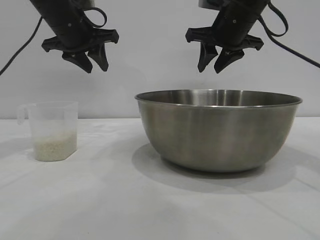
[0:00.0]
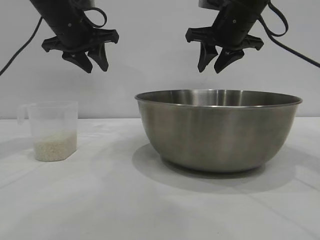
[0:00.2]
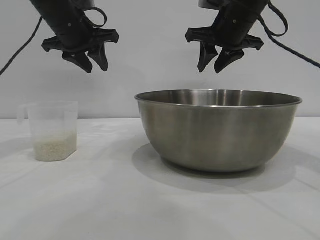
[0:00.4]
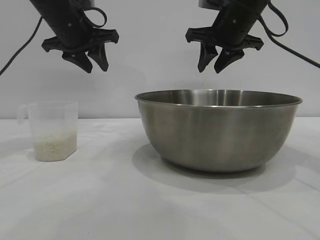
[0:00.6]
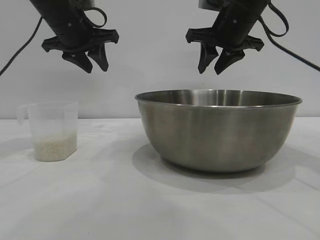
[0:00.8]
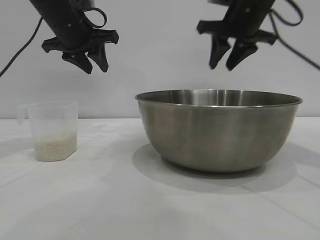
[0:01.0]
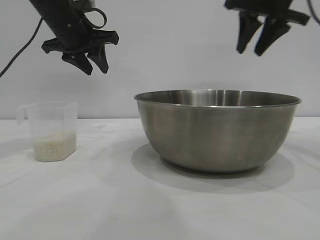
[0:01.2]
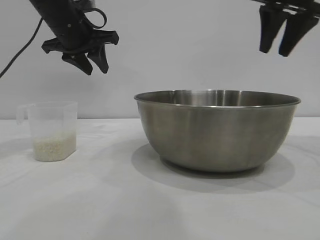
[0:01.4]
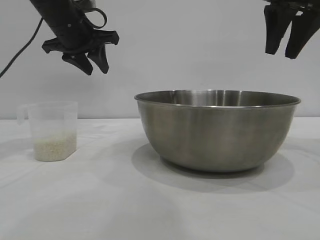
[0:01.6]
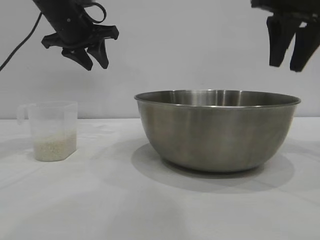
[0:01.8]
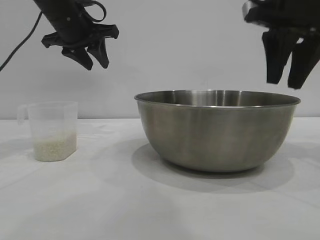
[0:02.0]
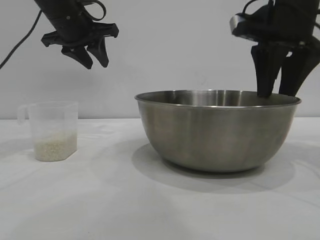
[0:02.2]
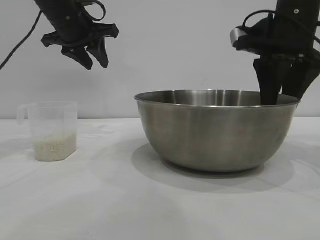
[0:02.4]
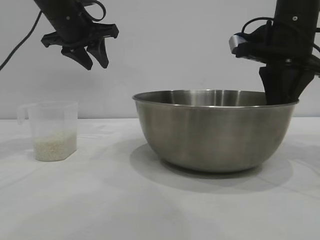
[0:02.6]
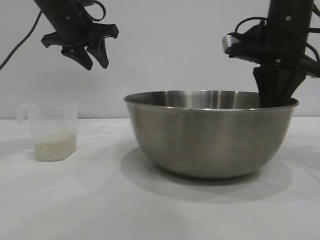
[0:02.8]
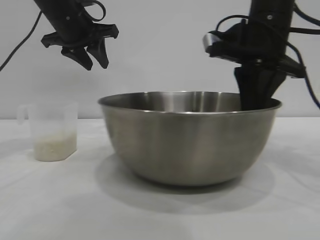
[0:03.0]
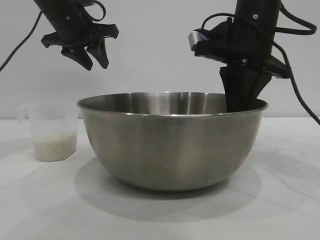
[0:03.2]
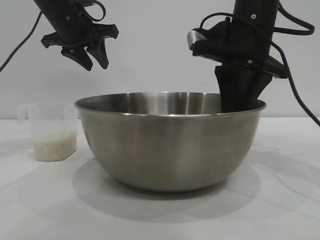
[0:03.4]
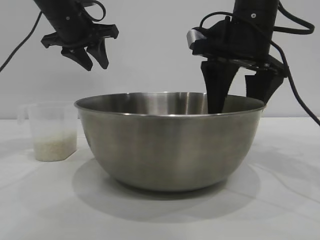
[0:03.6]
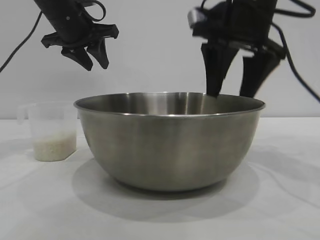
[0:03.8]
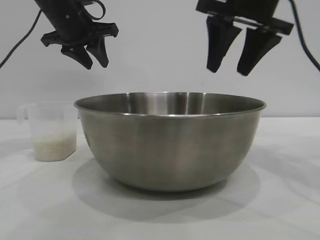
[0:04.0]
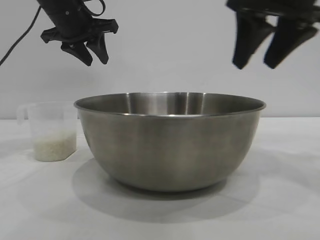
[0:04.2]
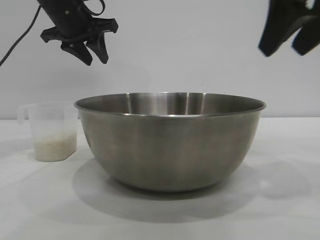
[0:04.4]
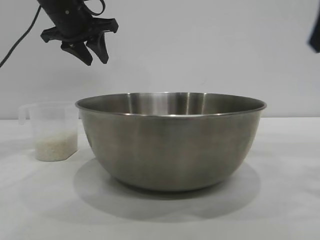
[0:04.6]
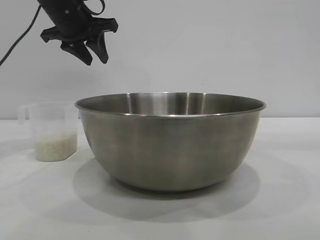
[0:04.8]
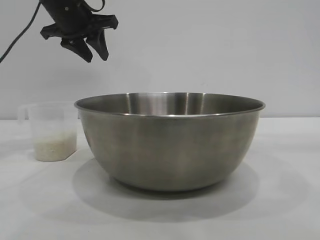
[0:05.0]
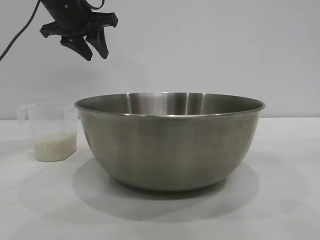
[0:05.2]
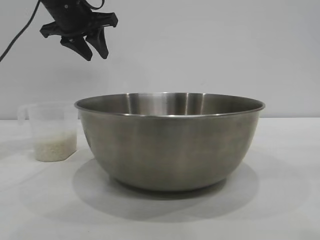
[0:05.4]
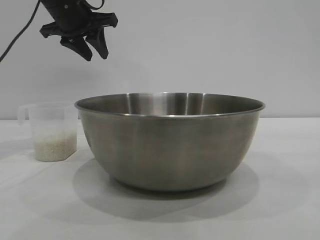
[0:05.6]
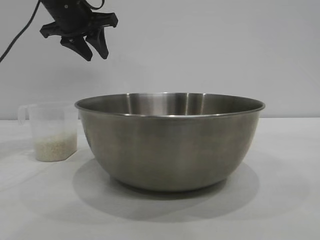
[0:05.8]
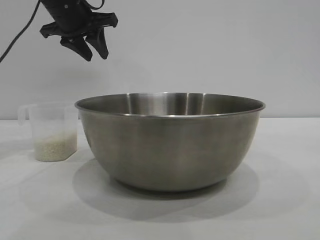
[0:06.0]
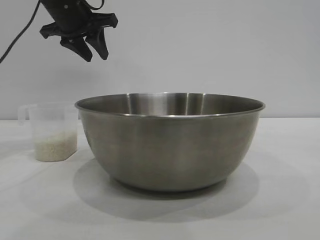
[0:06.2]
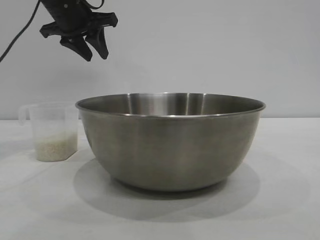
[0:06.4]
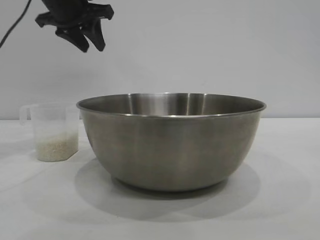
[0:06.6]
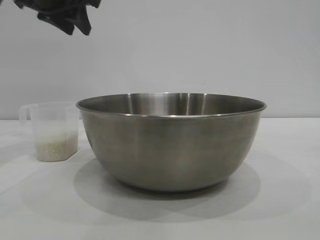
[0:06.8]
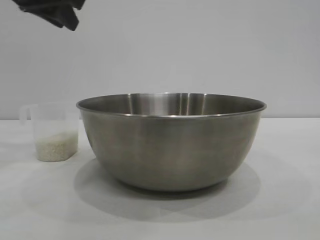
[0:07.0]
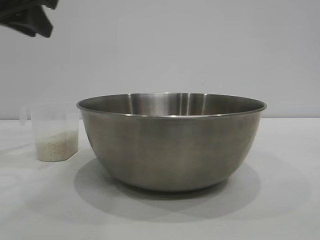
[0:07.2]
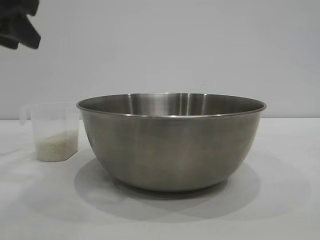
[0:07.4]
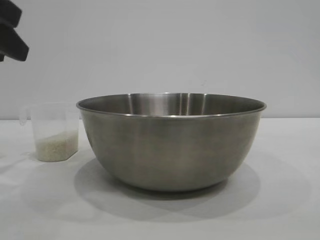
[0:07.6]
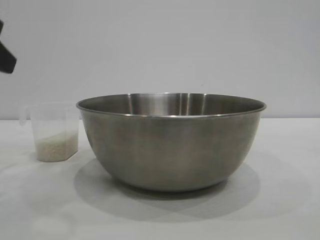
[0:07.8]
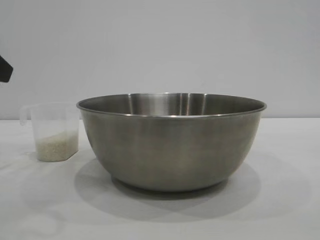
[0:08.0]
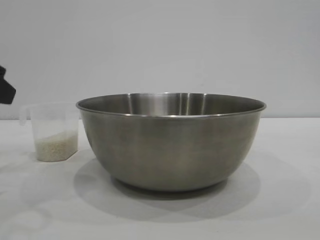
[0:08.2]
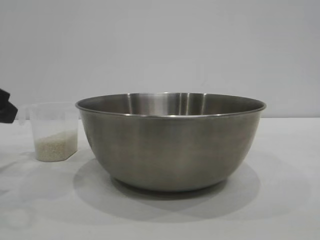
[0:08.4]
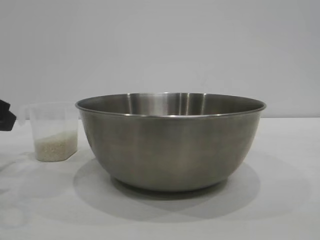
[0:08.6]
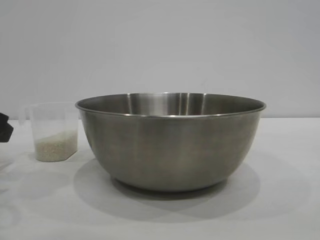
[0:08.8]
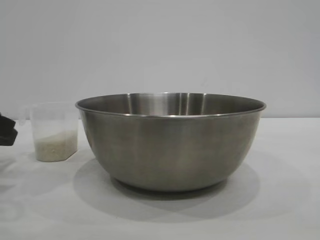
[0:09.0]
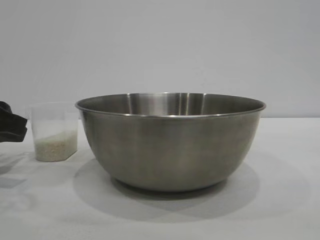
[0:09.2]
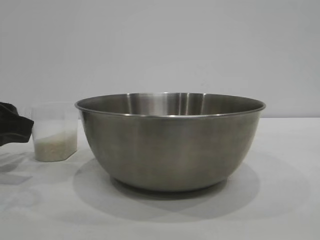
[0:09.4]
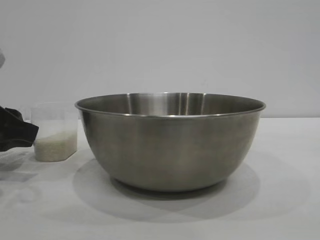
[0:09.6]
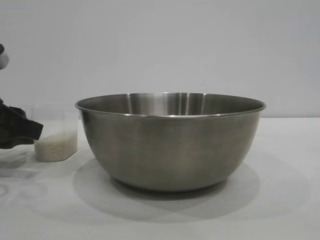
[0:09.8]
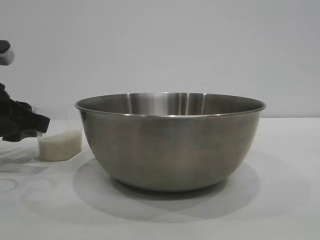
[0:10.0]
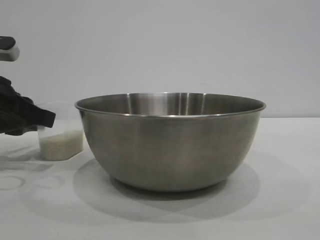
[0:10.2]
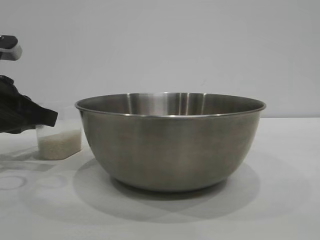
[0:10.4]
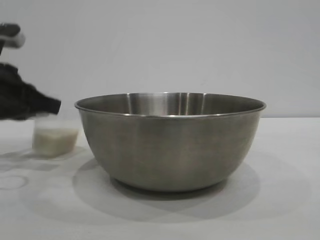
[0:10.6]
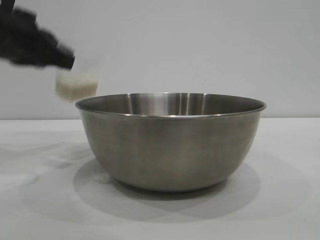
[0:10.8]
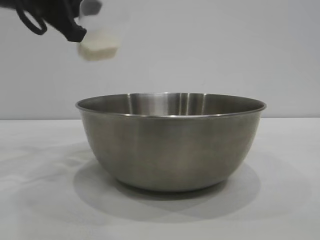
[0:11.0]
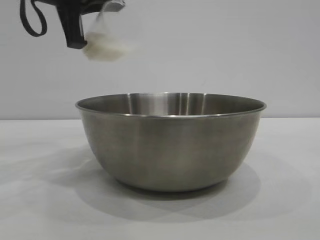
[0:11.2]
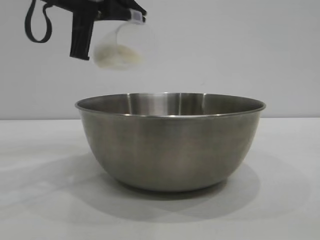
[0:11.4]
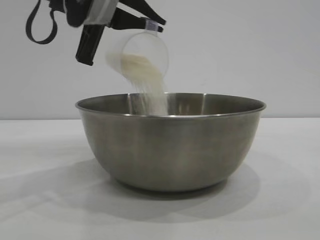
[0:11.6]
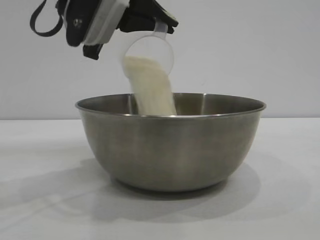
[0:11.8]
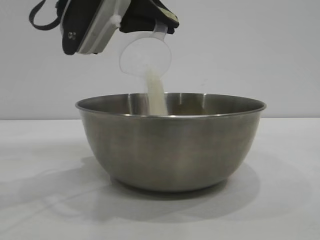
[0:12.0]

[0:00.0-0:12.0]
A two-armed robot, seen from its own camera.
Task of the whole recording: the right gripper grasp the rice container and place it in the center of the table, the left gripper grasp the rice scoop and pour the rice into the rice container.
Step, 0:00.0 to 0:03.6: Move the bowl to the center of view with the right gripper.
Step, 0:04.0 to 0:10.6: Pick up the cup with rice in it with the left gripper.

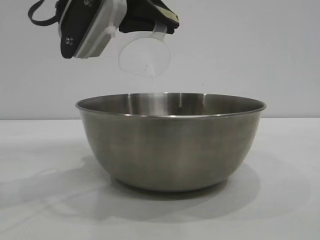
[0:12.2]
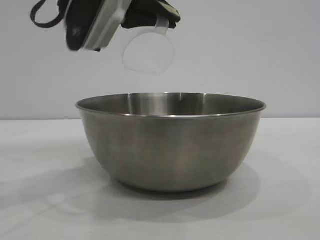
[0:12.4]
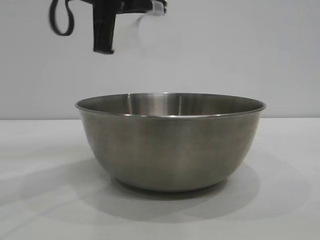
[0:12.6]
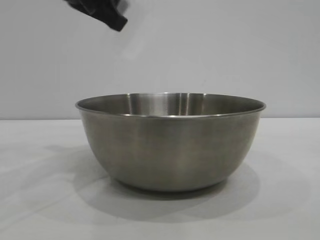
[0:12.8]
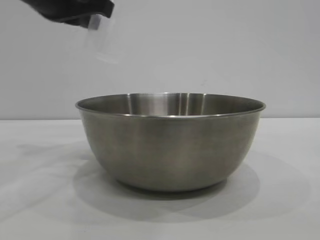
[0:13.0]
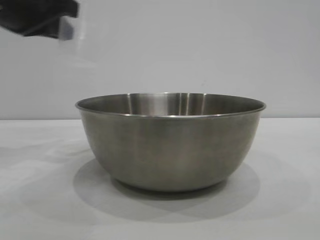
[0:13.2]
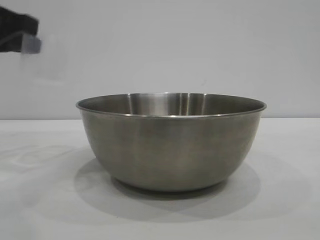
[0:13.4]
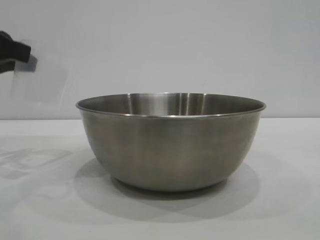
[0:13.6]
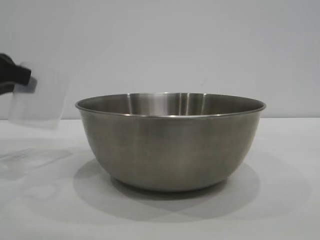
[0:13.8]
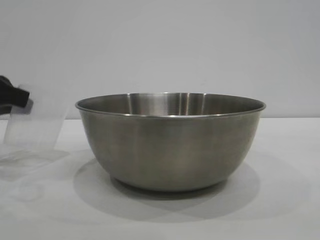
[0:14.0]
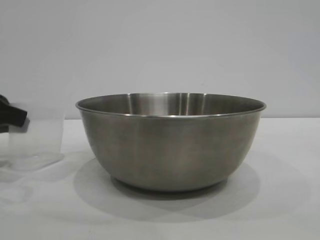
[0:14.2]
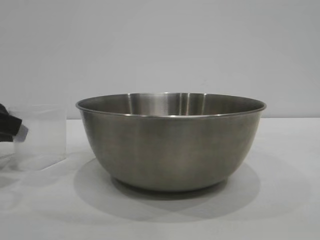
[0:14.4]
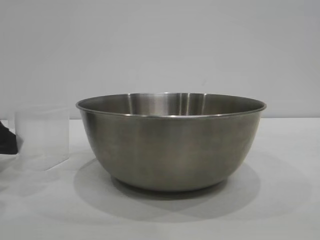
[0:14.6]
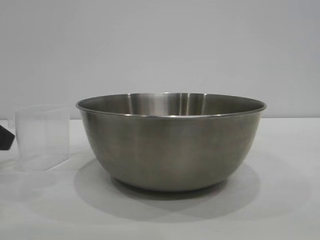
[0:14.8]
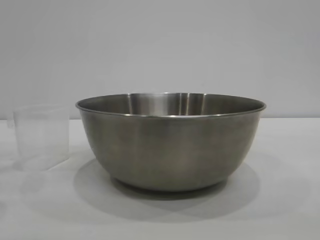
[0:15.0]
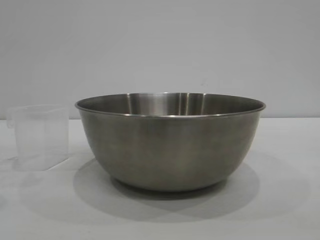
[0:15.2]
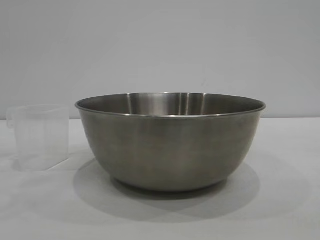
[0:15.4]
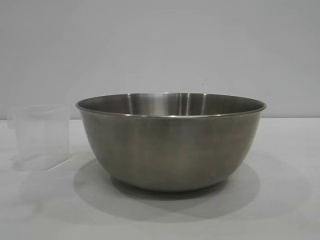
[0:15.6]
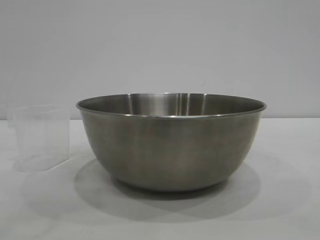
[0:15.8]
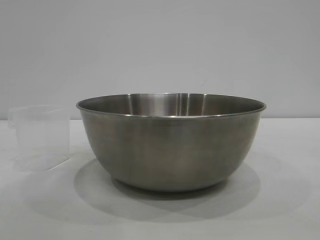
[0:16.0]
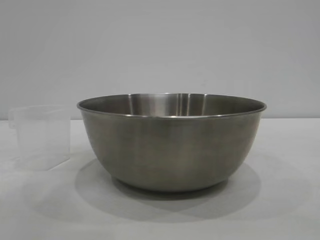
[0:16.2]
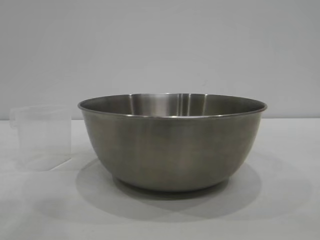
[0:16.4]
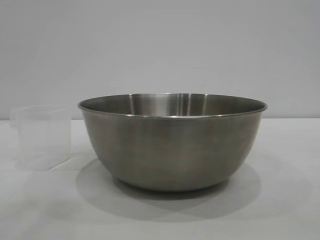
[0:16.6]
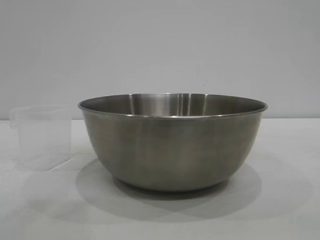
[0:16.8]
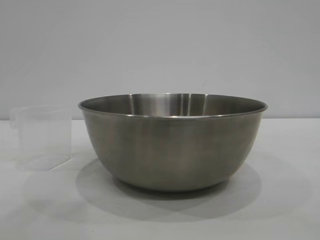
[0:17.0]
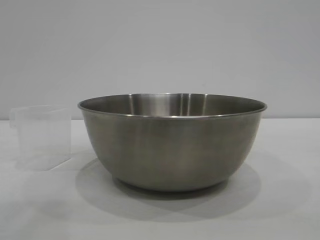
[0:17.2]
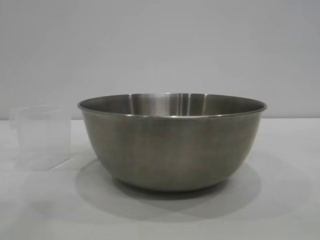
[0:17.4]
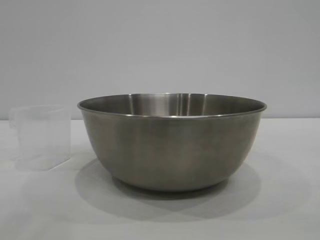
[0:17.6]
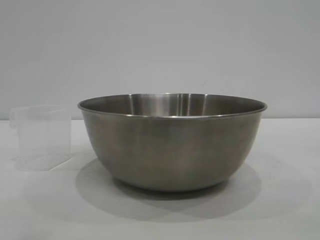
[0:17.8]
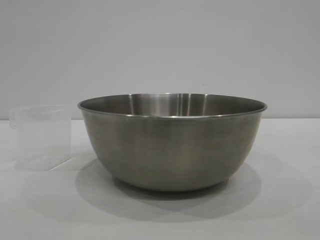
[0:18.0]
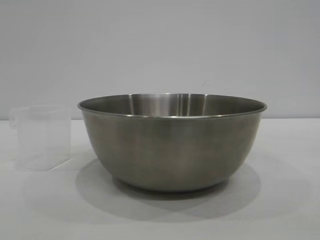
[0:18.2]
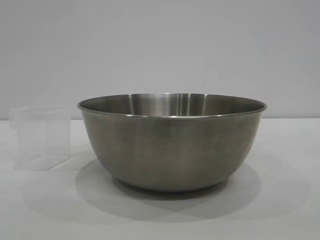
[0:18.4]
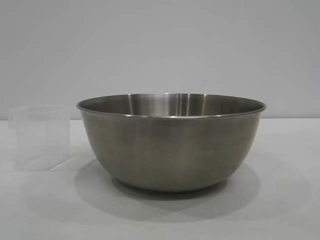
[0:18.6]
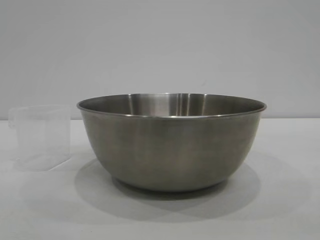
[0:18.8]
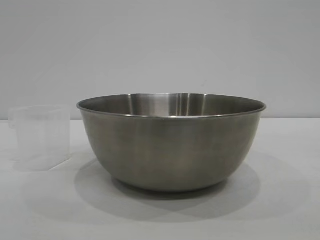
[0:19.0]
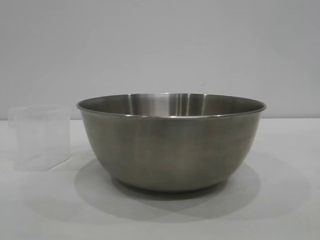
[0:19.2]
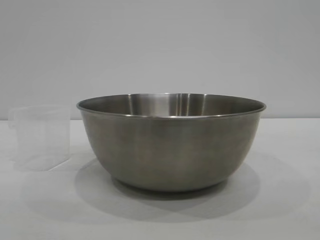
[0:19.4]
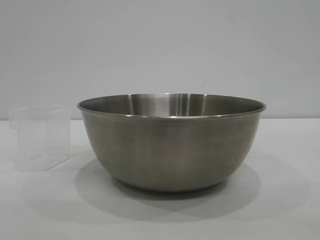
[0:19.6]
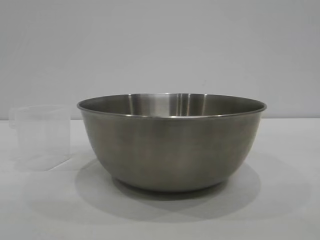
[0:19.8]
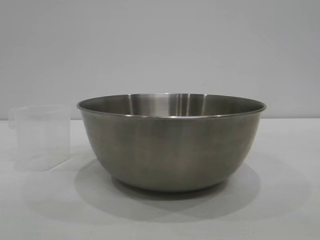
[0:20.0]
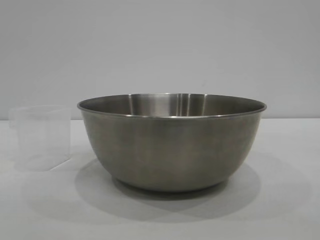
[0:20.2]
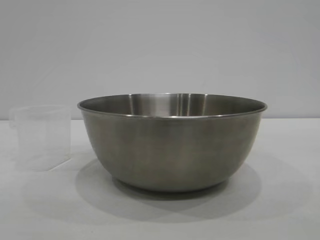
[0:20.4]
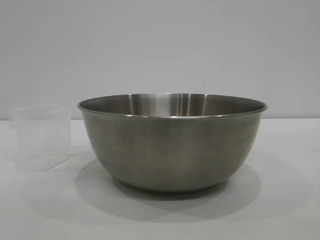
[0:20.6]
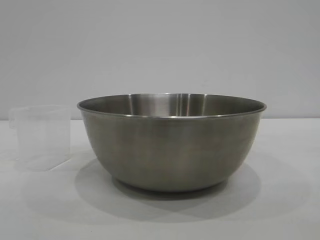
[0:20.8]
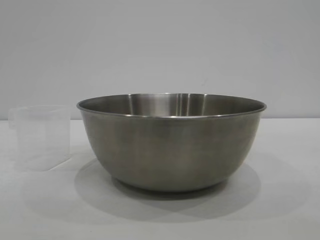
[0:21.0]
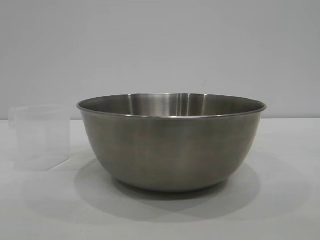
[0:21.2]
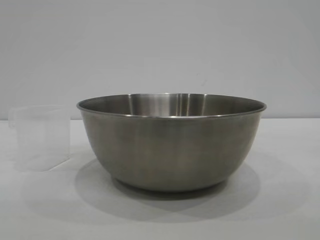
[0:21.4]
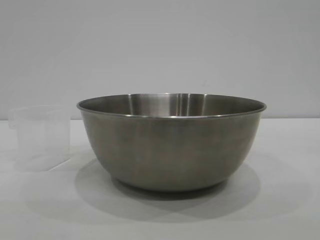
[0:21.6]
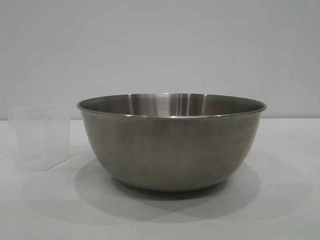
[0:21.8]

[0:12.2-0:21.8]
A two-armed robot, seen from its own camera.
Task of the whole recording: the right gripper grasp the rice container and place it in the center of the table, the left gripper grasp the rice scoop and pour the rice into the rice container.
Step, 0:13.2 to 0:14.8: Place the cup on the table with the left gripper.
